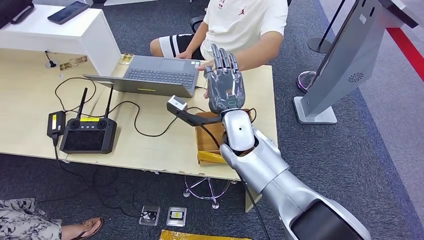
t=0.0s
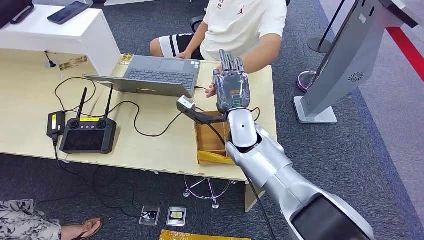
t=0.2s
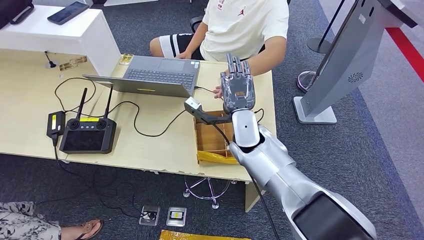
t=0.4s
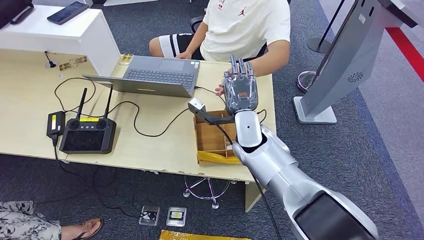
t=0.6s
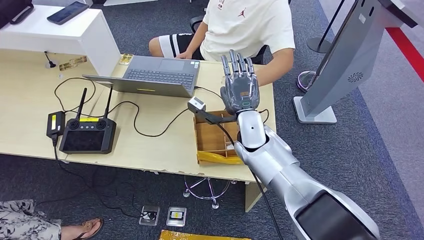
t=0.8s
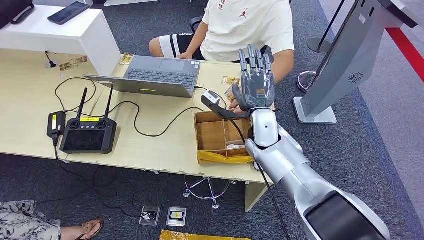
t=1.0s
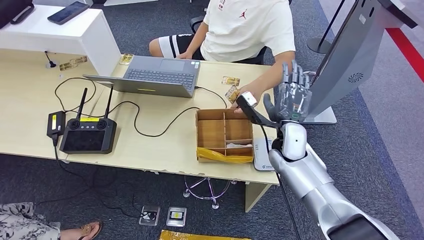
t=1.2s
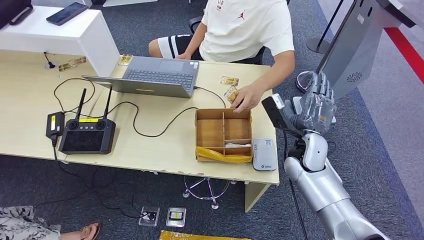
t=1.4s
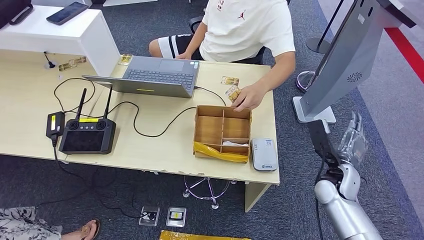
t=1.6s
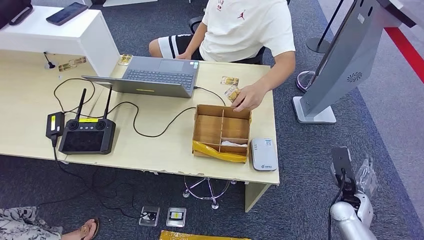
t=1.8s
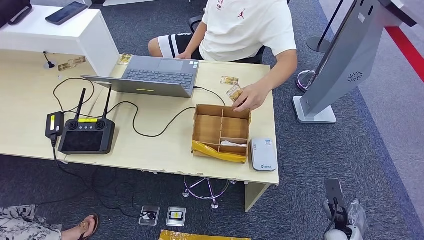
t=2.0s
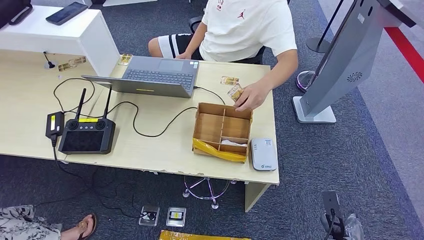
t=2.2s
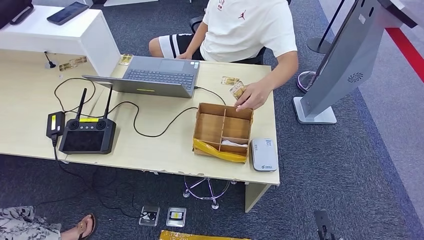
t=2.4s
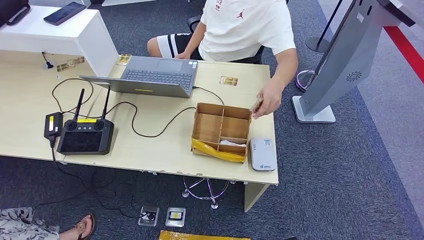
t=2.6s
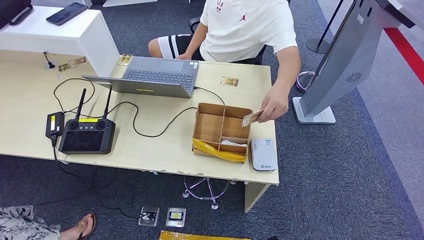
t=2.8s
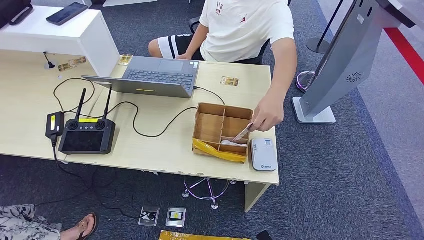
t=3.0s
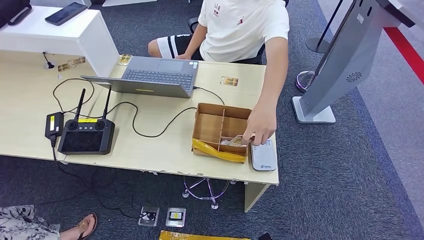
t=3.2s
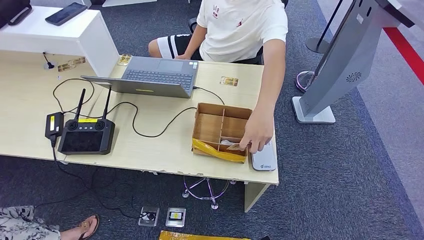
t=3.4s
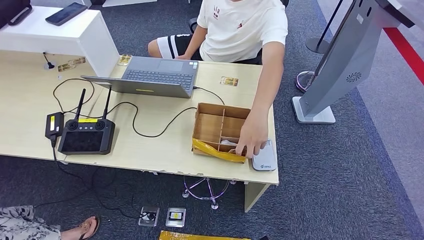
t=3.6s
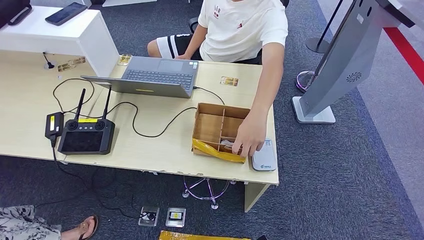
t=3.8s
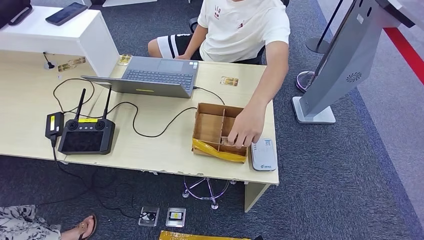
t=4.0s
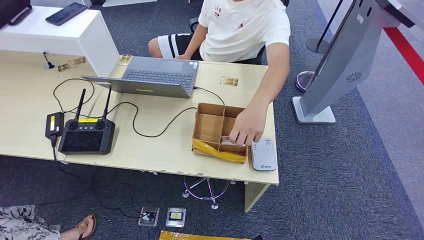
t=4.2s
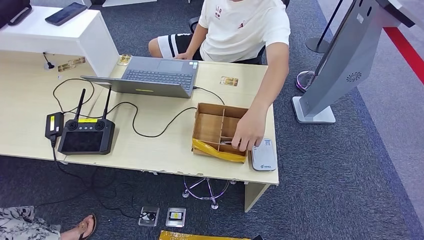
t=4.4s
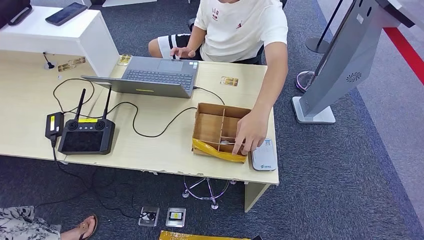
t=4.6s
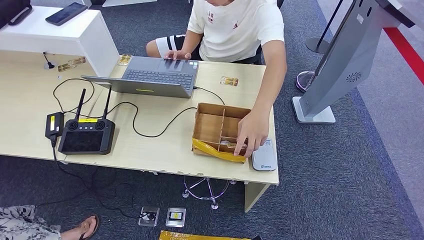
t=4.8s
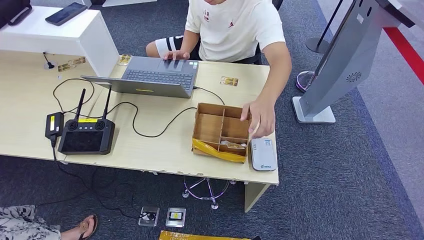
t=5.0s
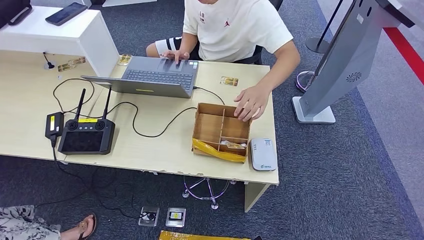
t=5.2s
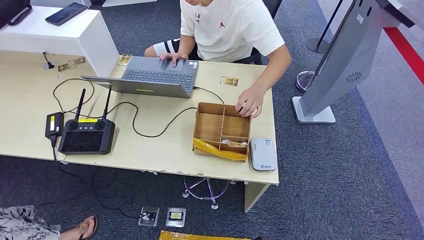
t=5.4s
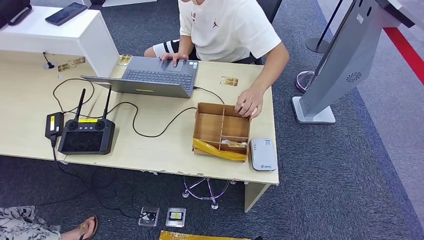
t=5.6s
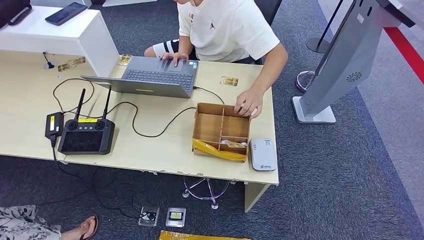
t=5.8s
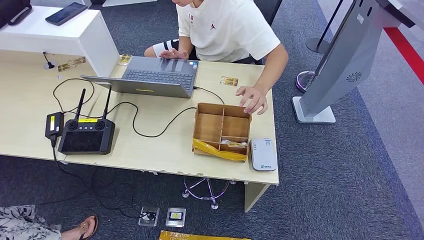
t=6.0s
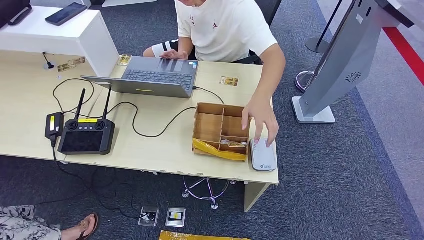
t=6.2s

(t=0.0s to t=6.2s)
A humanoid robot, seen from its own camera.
Step, t=0.2s - t=6.2s: Hand the room key to the person.
t=1.6s - t=3.2s: The right hand heads backward, downward and to the left, covering some 35 cm.
t=3.2s - t=4.6s: The hands make only small movements.
t=4.6s - t=6.2s: The right hand travels backward by roughly 5 cm.

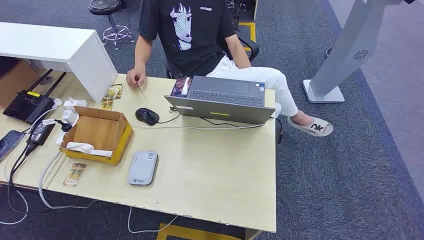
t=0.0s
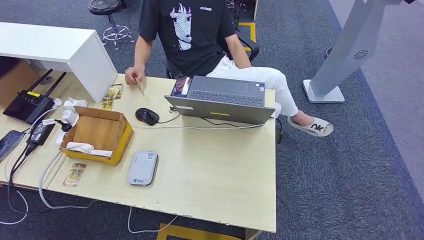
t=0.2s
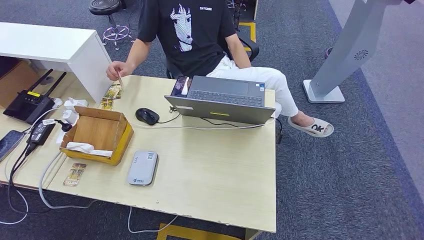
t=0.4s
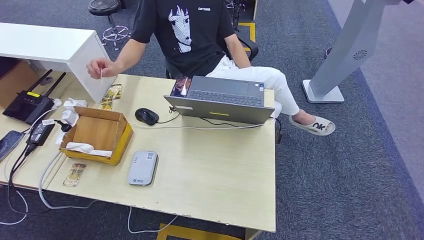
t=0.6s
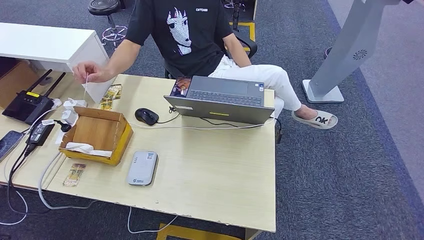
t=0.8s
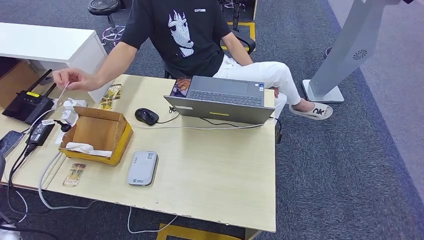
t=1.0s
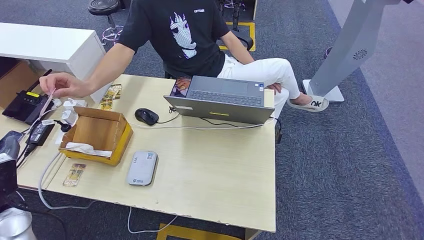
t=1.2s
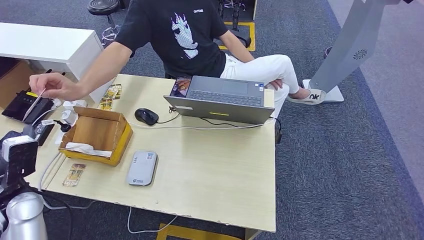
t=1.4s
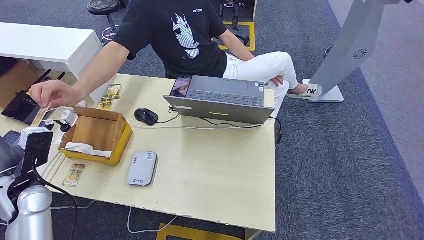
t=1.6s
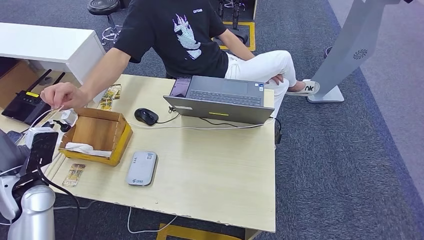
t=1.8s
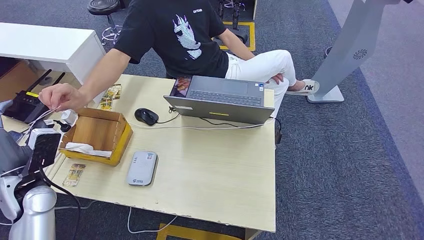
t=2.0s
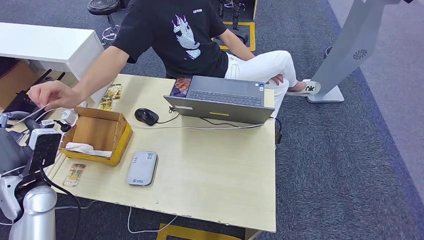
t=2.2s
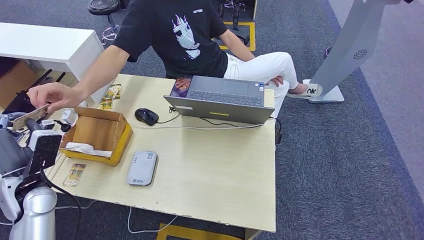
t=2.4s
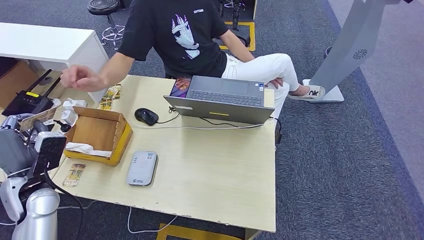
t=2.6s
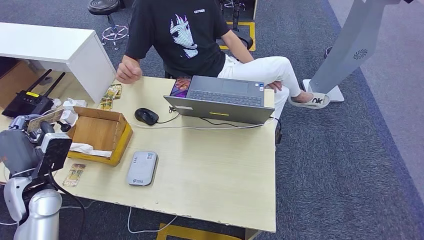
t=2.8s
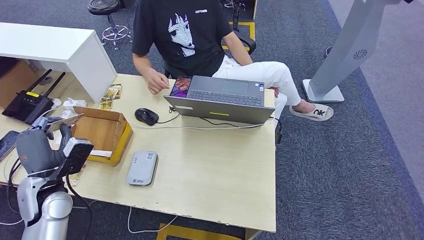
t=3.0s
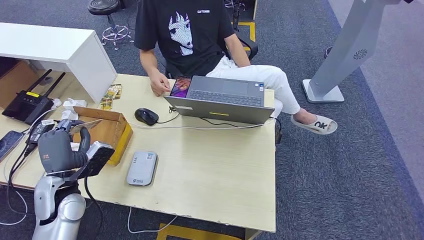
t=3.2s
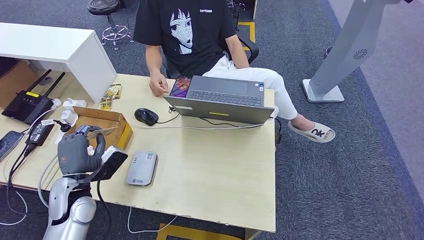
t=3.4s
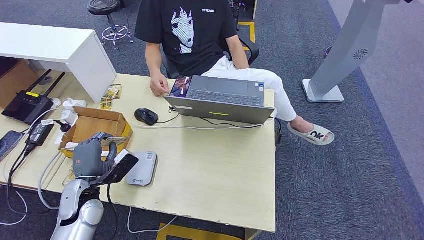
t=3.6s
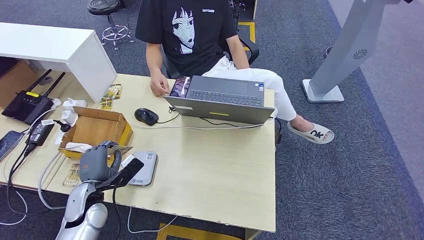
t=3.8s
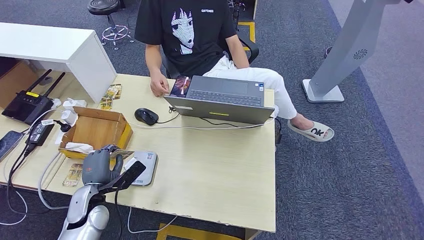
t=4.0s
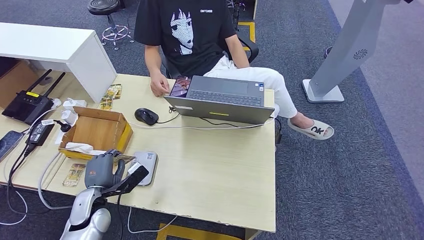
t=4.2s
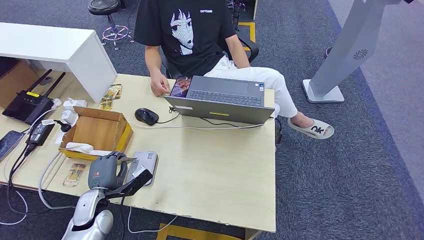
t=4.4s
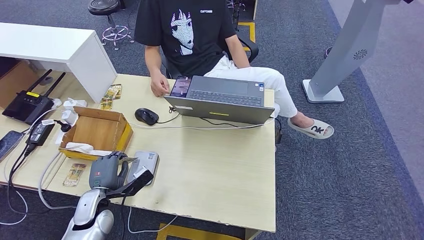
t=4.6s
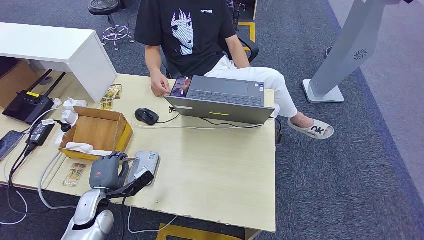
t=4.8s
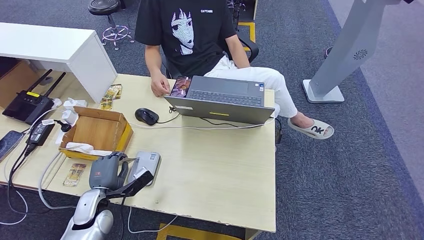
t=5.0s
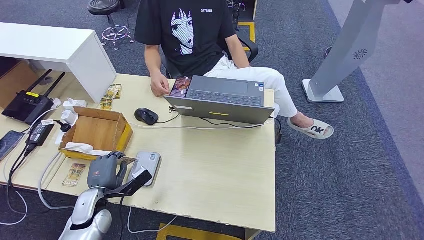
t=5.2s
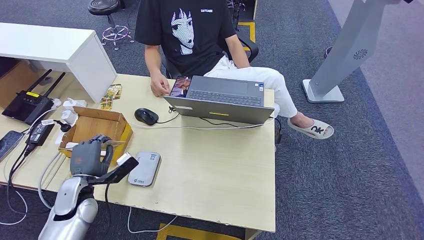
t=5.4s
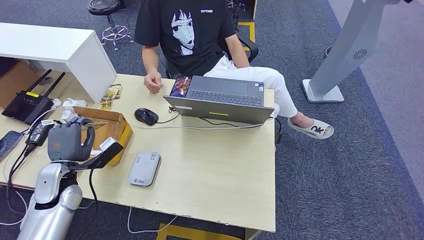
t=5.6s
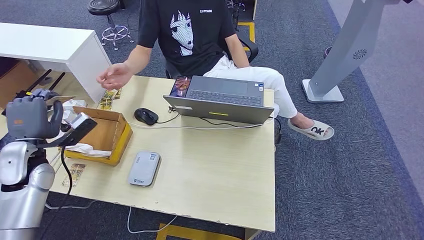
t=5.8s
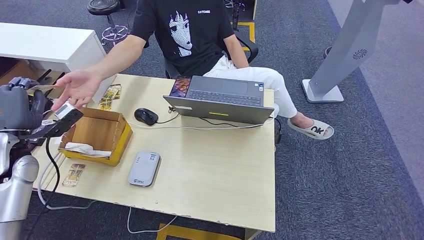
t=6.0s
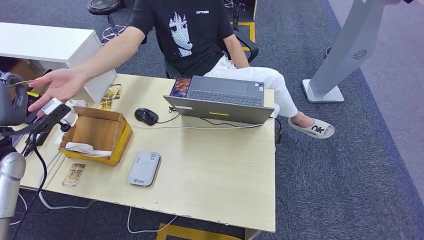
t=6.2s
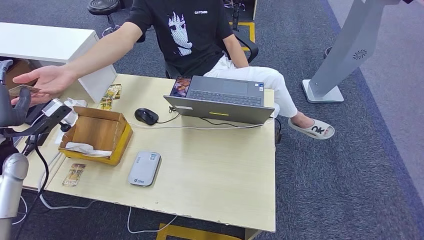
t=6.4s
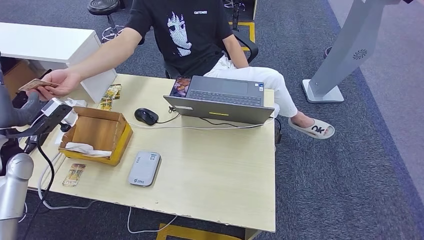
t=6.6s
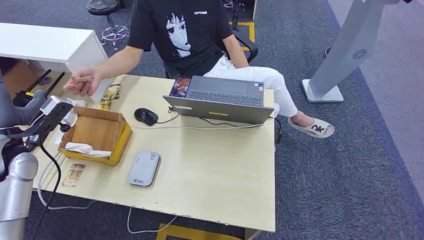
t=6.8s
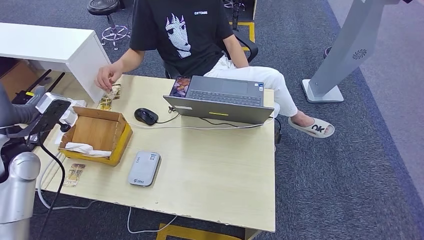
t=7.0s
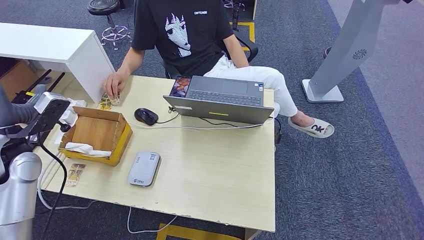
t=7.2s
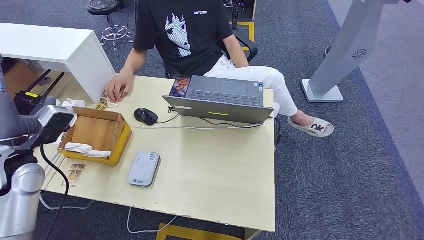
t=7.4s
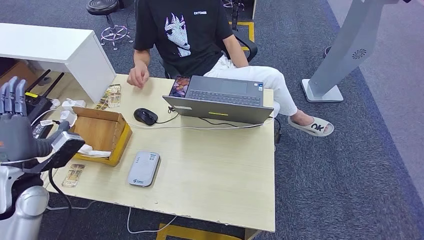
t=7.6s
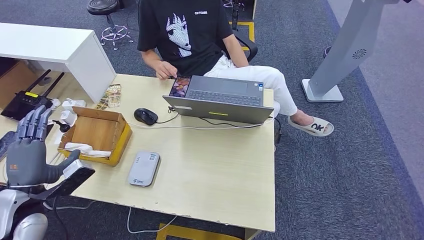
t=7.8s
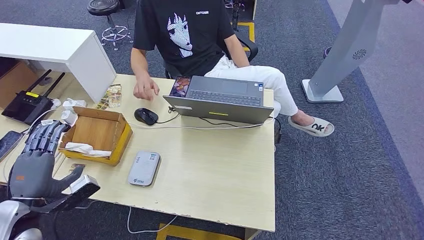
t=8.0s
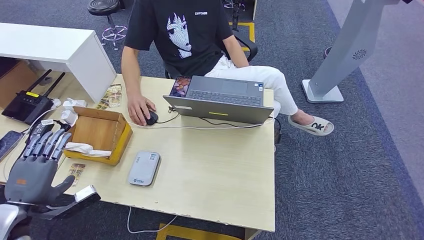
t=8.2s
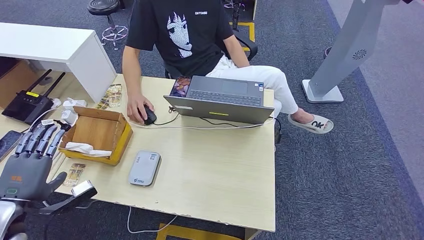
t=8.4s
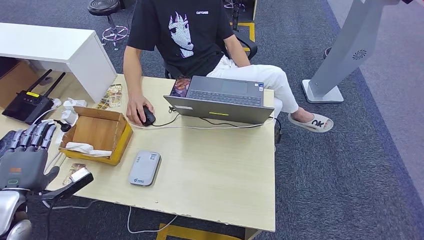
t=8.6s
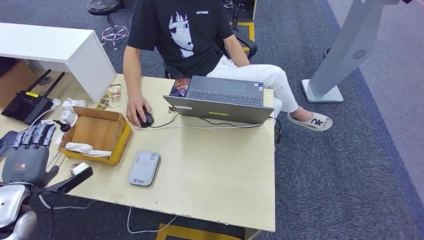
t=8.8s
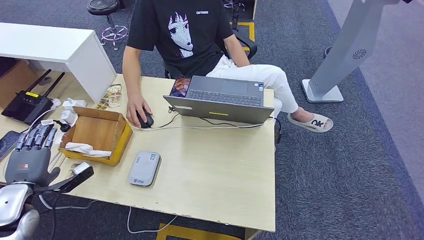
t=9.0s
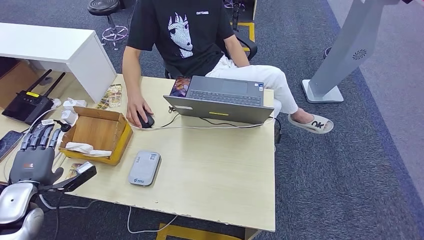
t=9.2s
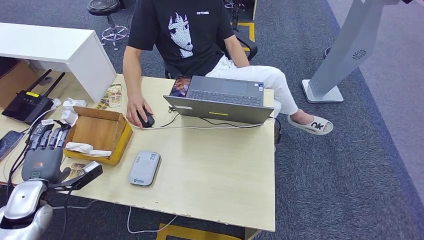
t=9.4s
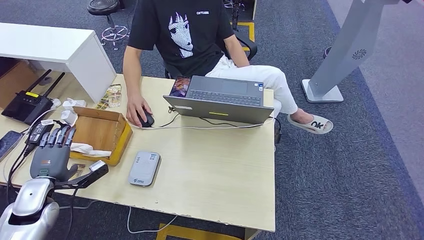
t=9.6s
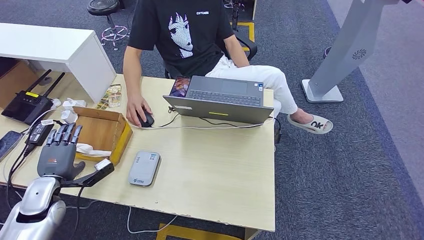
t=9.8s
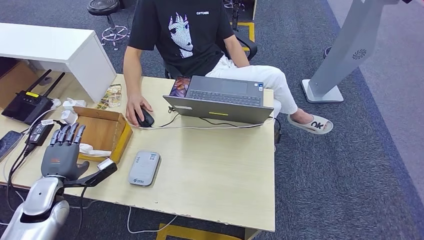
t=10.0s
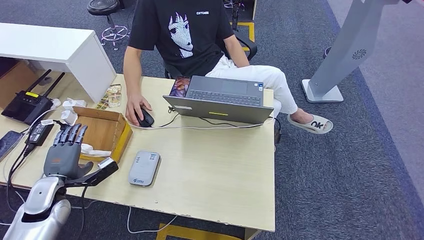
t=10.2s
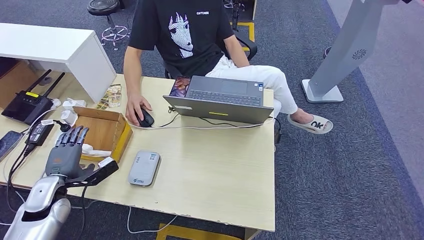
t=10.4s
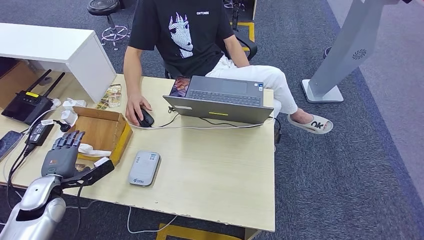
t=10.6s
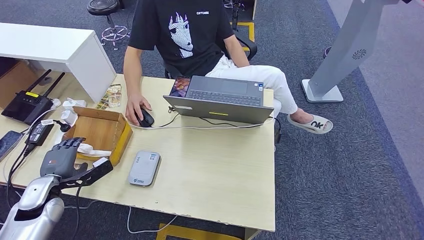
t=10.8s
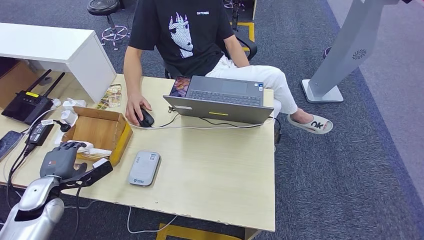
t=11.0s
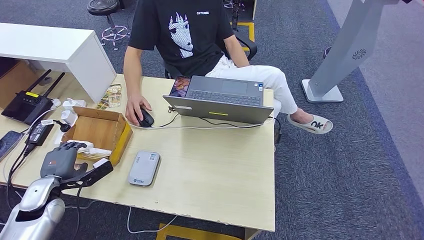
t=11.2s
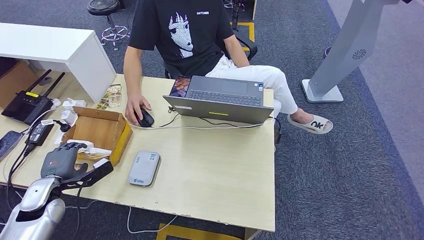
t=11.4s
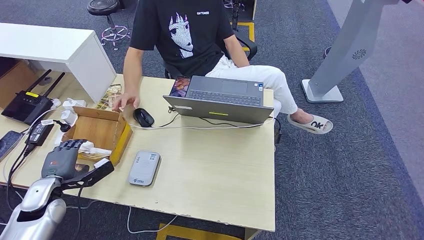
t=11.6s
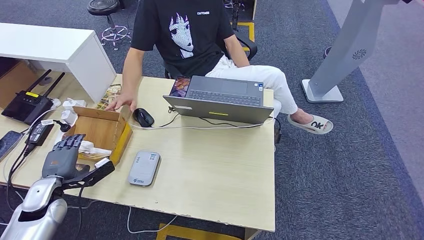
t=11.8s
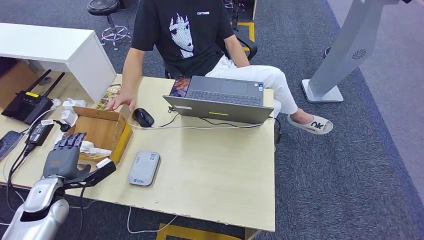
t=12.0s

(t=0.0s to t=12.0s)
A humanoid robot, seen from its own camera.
Step, t=0.0s - t=2.4s: Take the ID card from the person's hand.
Step, t=3.2s - t=5.4s: Place the ID card on the card reader.
Step, t=6.2s - t=9.4s: Hand the ID card to the person.
t=1.6s - t=3.0s: The hands move only a little.
t=3.0s - t=4.4s: The left hand shifts roughly 15 cm downward and to the right.
t=4.4s - t=6.0s: The left hand travels upward and to the left by about 25 cm.
t=6.0s - t=7.6s: The left hand moves backward, some 5 cm.
t=7.6s - t=9.0s: The left hand moves downward, approximately 5 cm.
t=9.0s - t=10.4s: The left hand changes place by some 5 cm.
t=10.4s - t=12.0s: The hands move only a little.
